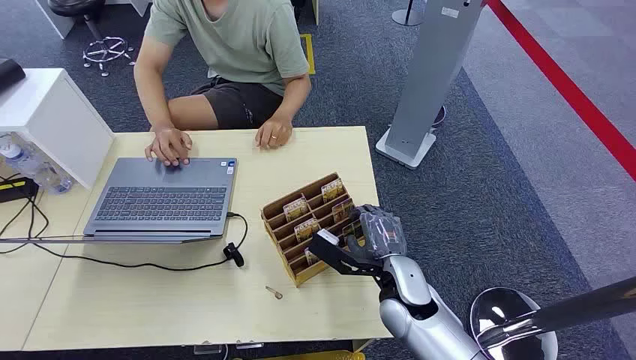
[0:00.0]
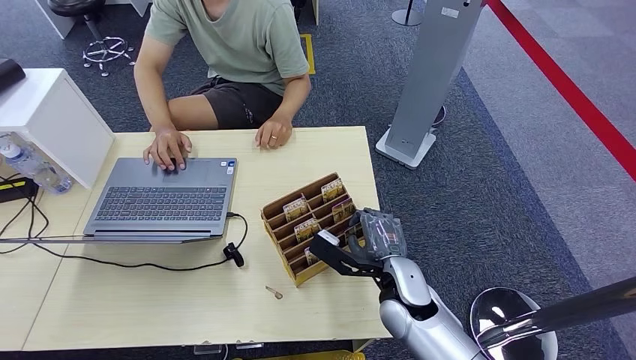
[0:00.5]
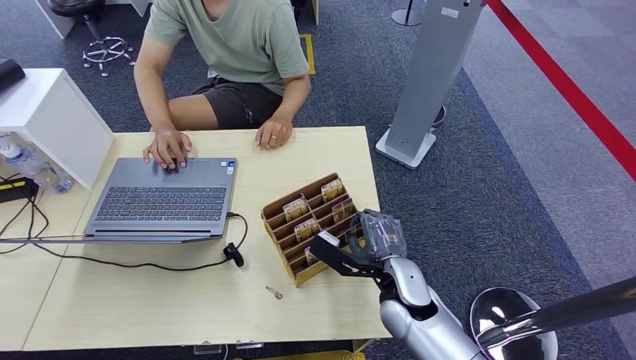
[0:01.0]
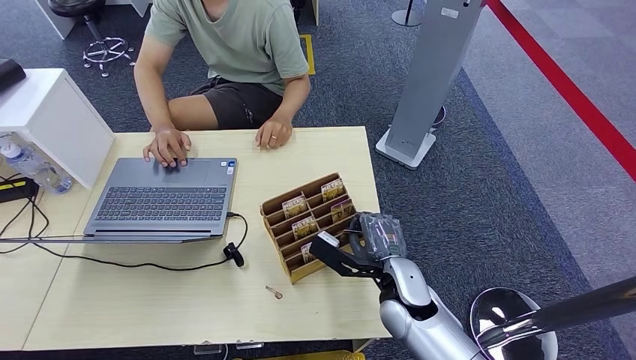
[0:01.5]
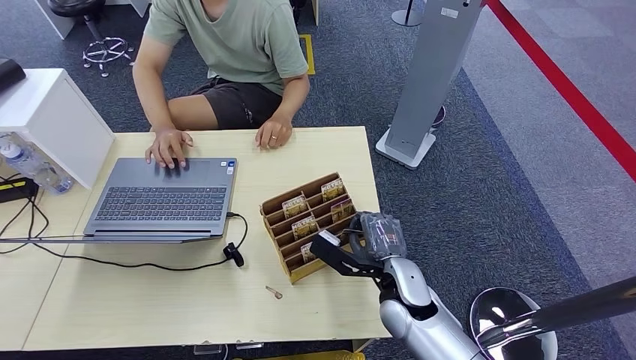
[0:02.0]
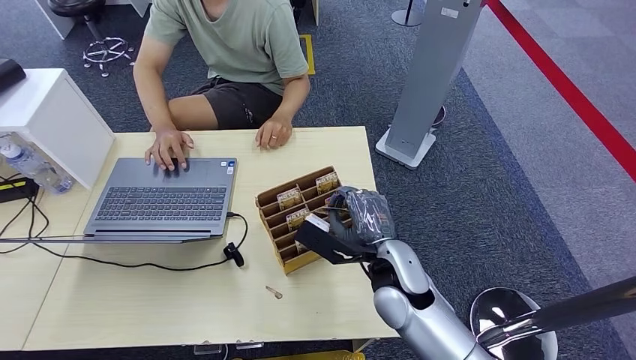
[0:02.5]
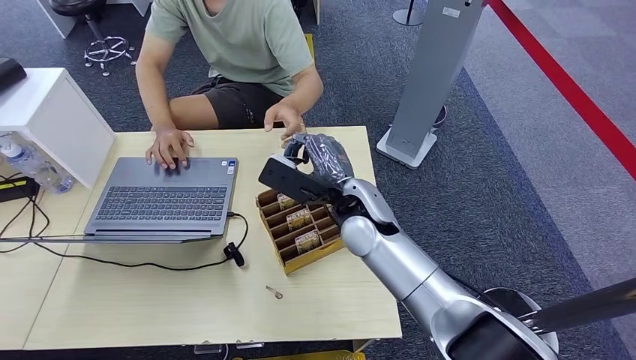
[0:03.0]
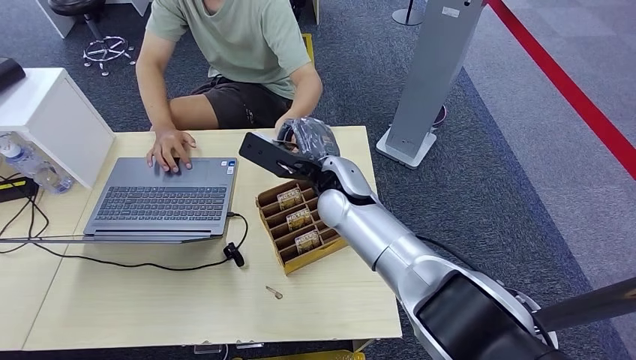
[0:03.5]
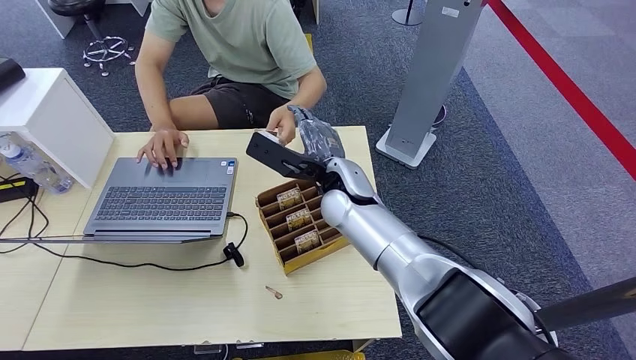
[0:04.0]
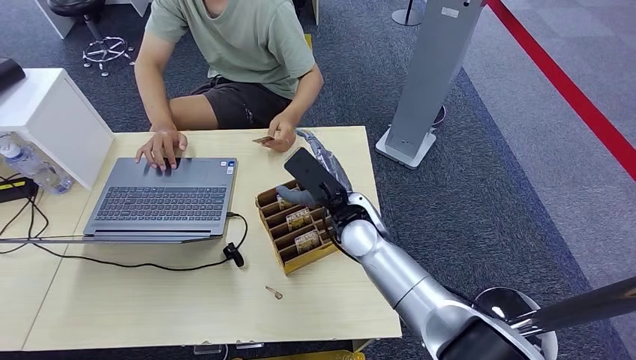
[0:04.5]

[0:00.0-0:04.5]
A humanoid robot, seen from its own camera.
Step, 0:00.0 to 0:03.0: Pick up the key card from the card box.
Step, 0:03.5 to 0:04.5: Hand the key card to the target.
0:02.0 to 0:04.5: The right hand heads forward, upward and to the left, covering roughly 15 cm.
